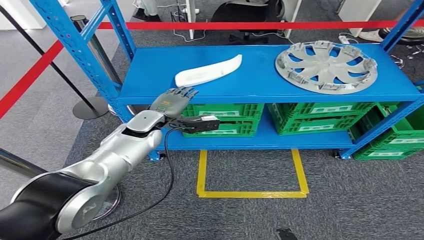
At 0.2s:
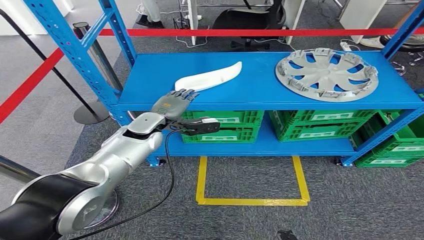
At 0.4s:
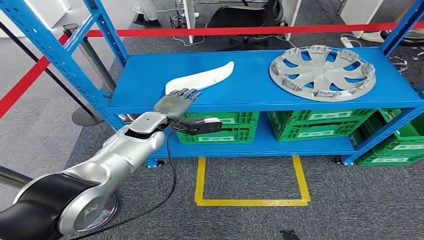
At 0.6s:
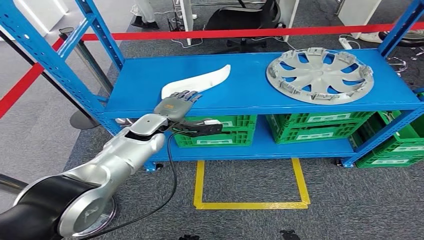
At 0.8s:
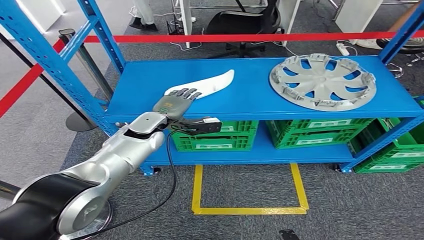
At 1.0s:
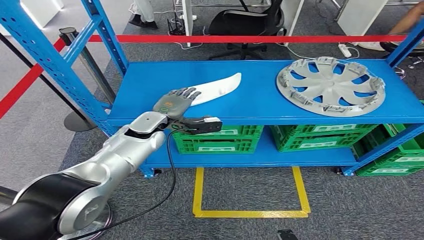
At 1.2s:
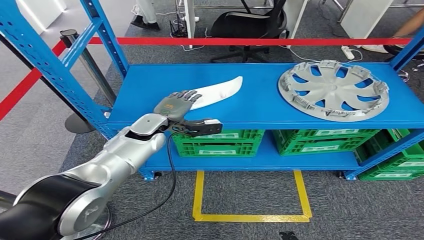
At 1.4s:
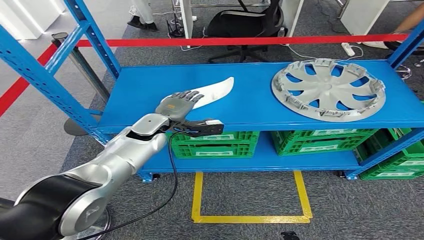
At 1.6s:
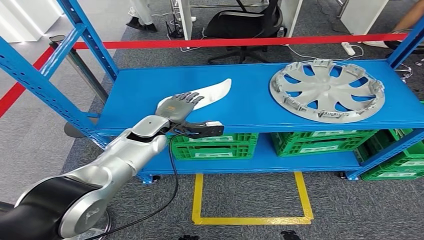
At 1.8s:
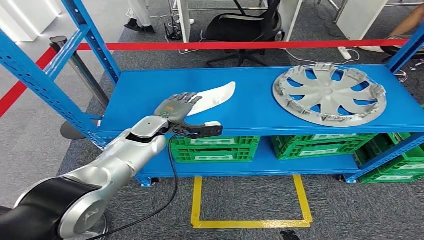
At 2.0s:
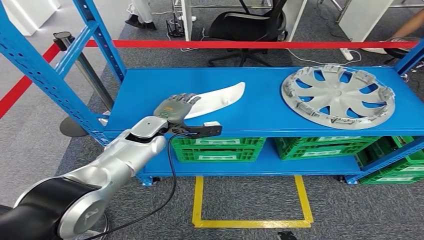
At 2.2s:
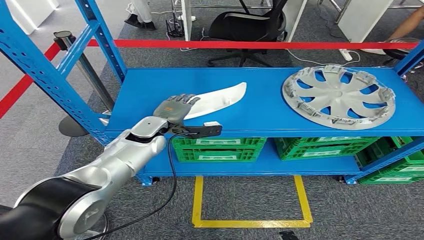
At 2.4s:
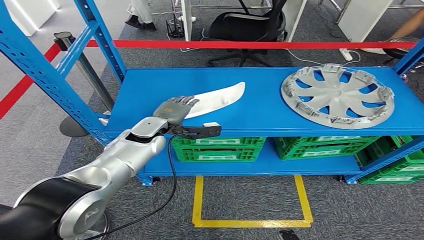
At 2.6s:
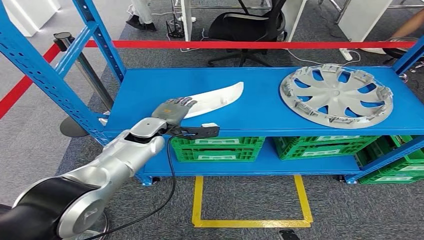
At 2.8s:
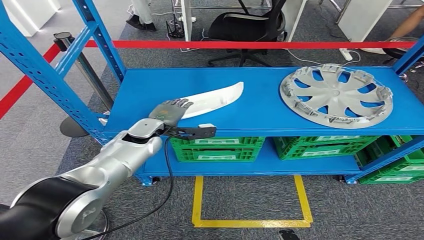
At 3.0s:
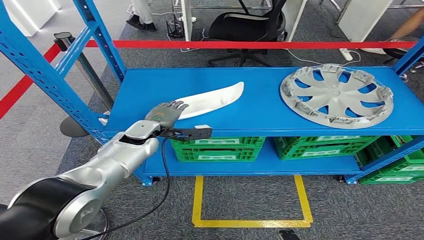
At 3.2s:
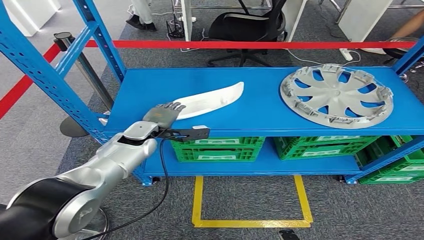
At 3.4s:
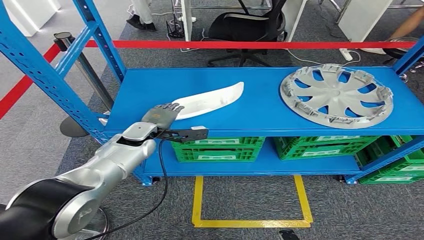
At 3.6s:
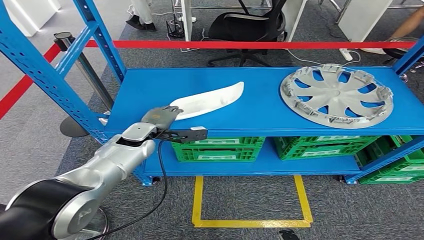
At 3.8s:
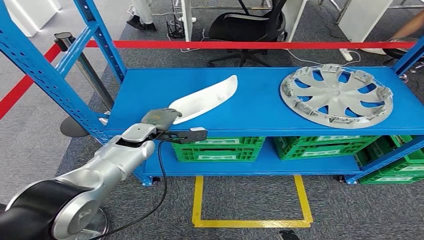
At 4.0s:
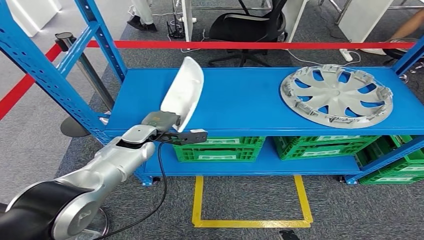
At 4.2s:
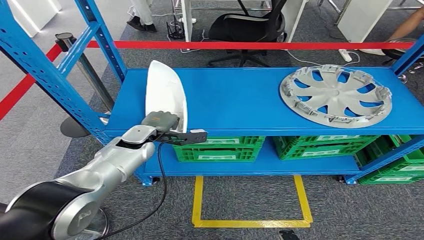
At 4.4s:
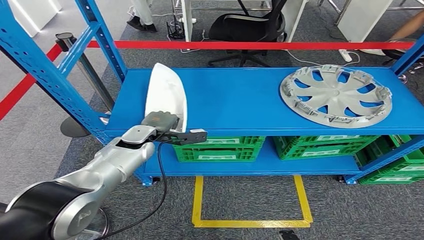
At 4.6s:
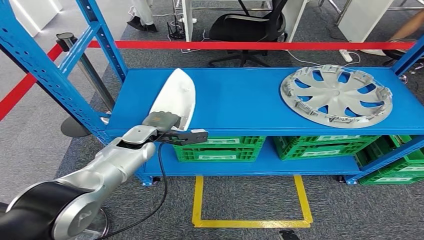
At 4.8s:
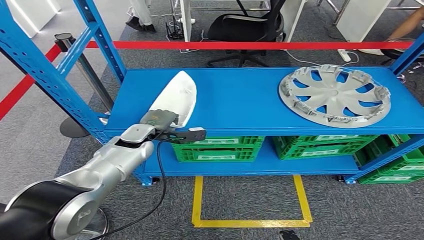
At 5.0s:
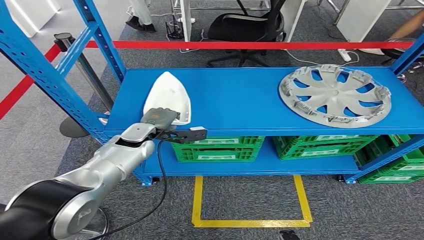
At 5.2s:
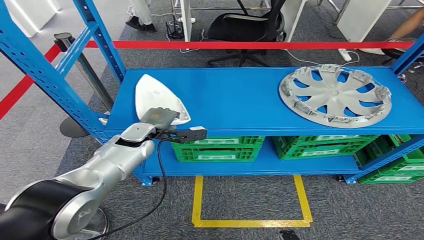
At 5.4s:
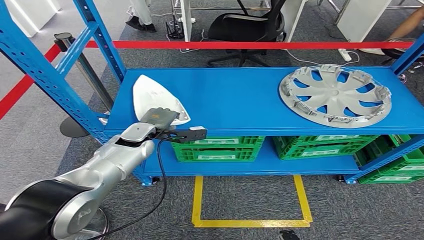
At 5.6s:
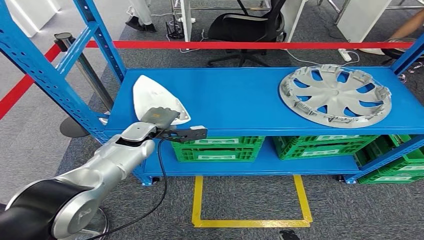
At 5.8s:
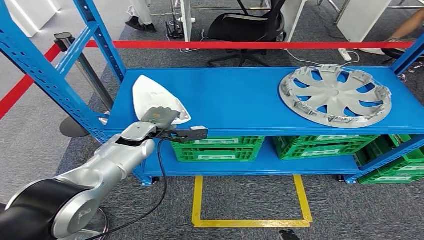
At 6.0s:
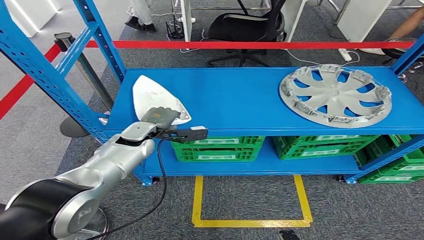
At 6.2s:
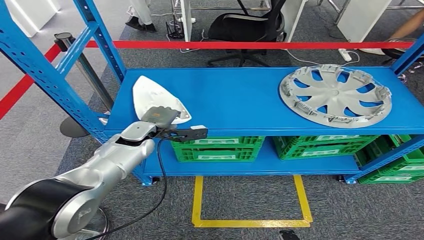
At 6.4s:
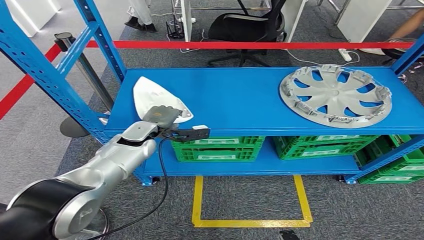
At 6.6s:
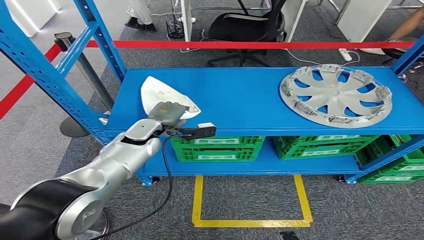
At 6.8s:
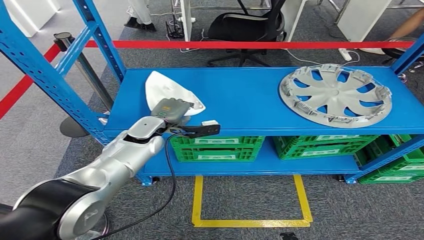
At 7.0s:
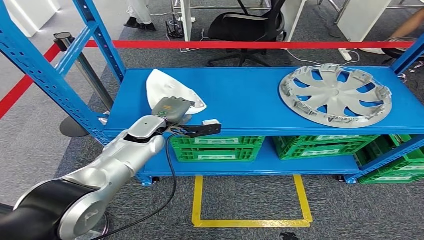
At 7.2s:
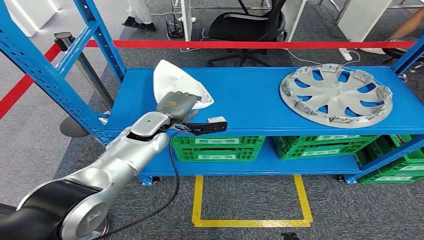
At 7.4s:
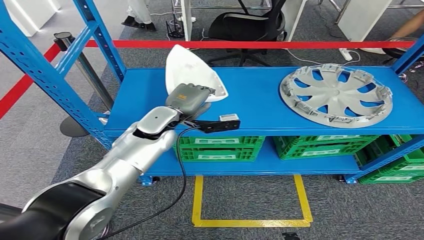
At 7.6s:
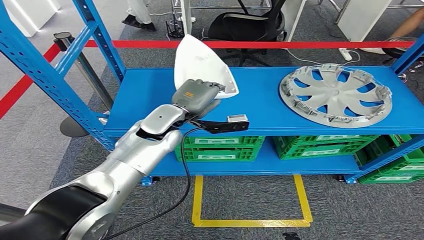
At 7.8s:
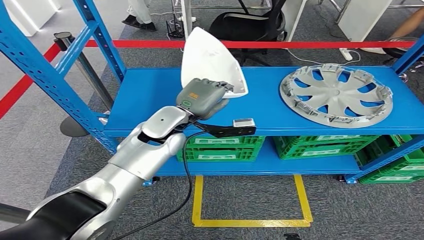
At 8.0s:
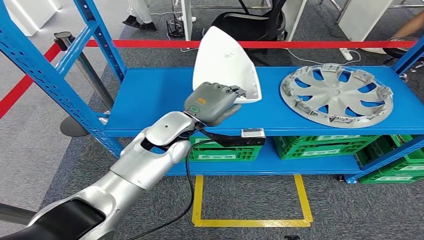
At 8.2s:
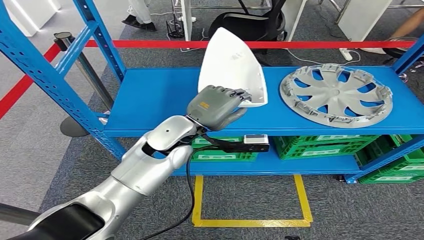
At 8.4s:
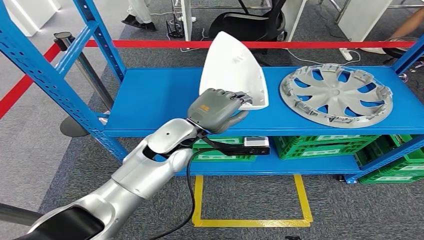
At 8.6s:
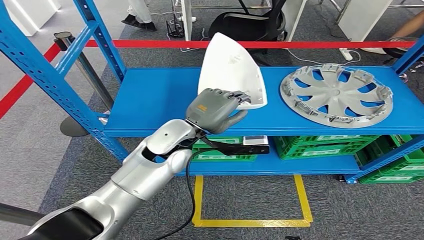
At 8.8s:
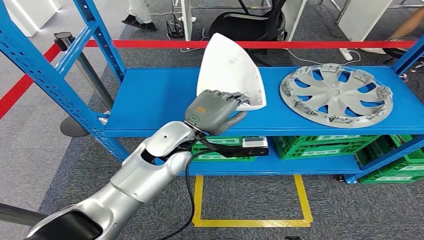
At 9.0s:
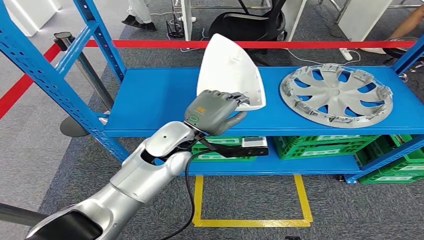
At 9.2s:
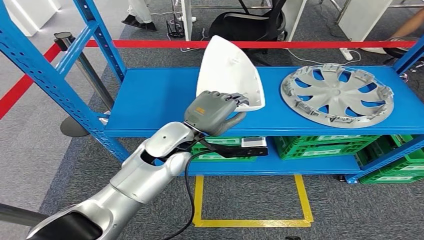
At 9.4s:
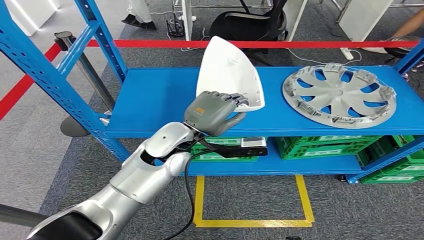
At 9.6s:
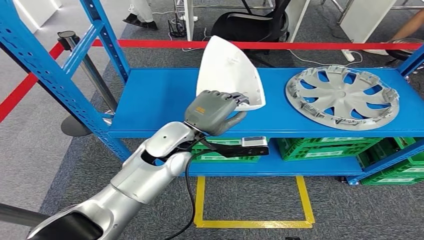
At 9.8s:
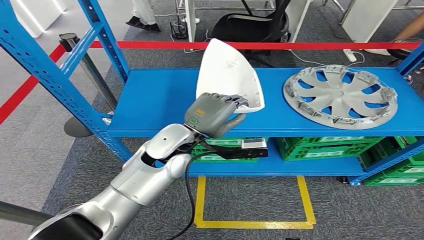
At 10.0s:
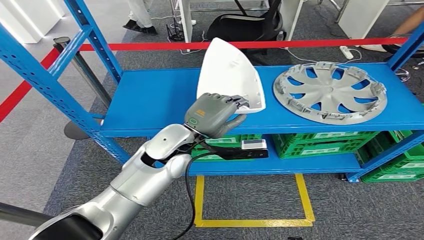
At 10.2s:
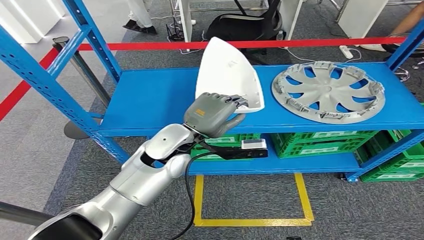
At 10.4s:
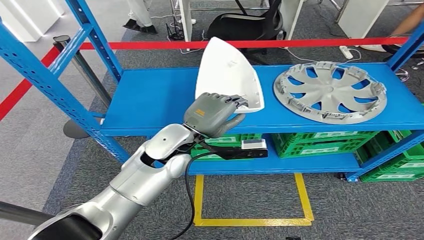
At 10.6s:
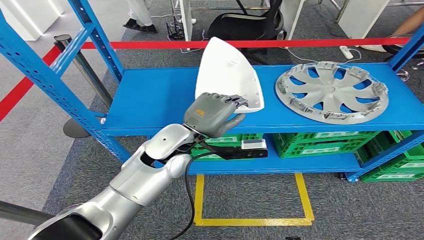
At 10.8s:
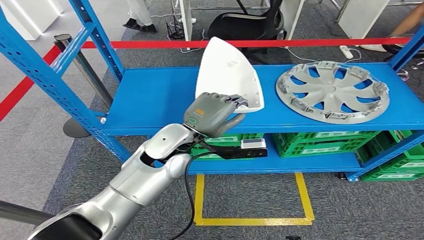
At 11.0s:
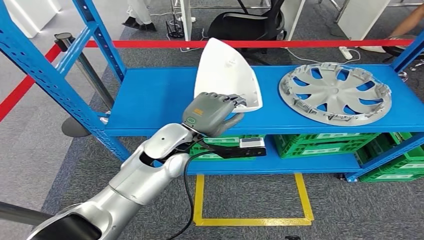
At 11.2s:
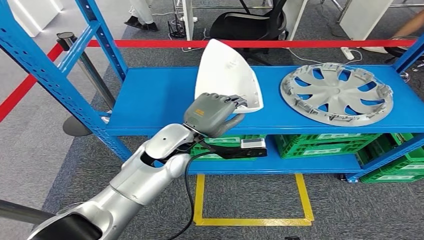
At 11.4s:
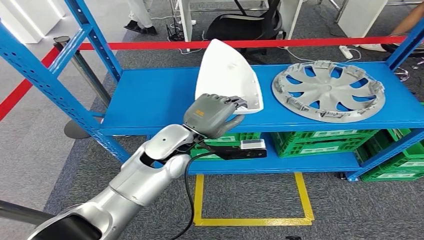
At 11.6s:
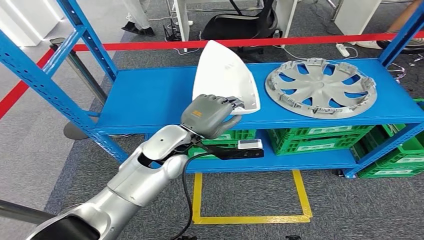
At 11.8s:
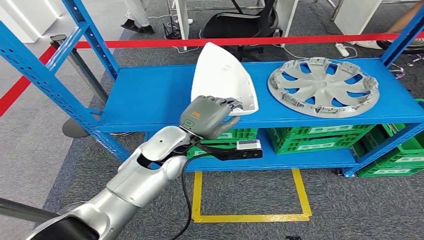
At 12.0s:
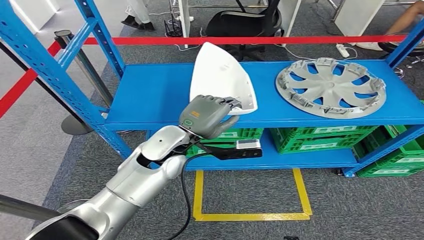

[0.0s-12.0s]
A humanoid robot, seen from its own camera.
Step, 0.0s to 8.2s: Pick up the small parts from the shelf.
3.0s to 4.4s: There are only small adjustments of the hands.
4.4s to 6.0s: Both hands stay put.
6.0s to 7.6s: The left hand moves upward and to the right, about 10 cm.
7.6s to 9.0s: The left hand is displaced backward by roughly 5 cm.

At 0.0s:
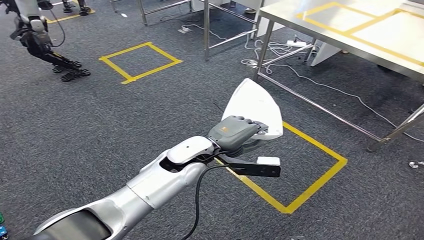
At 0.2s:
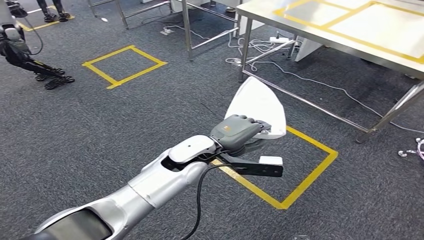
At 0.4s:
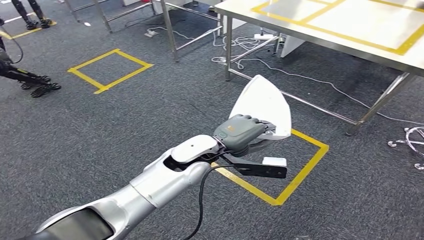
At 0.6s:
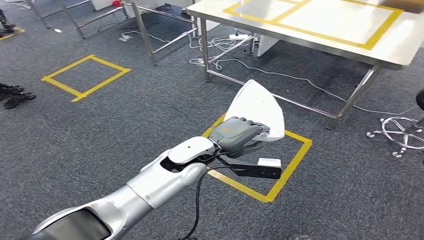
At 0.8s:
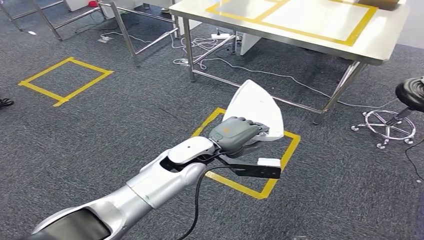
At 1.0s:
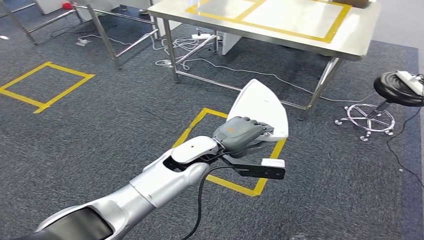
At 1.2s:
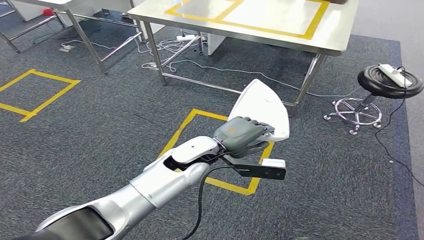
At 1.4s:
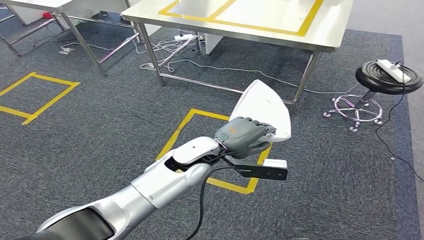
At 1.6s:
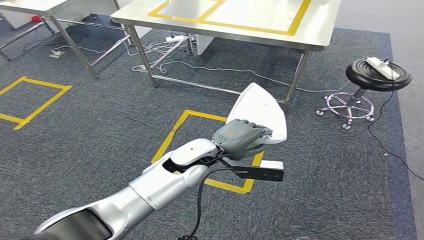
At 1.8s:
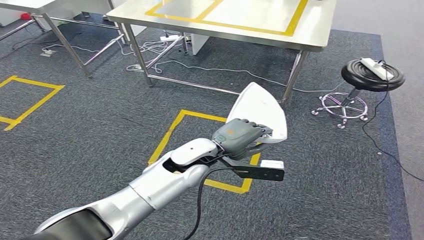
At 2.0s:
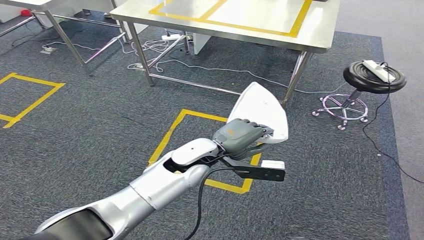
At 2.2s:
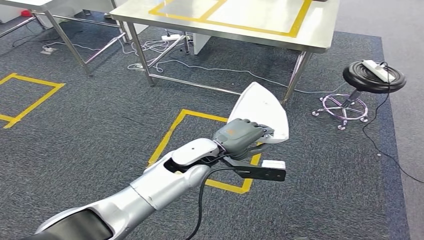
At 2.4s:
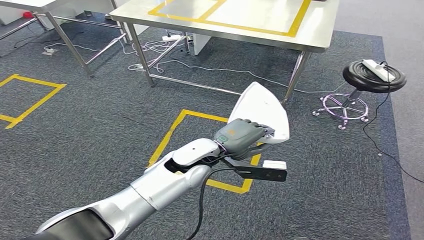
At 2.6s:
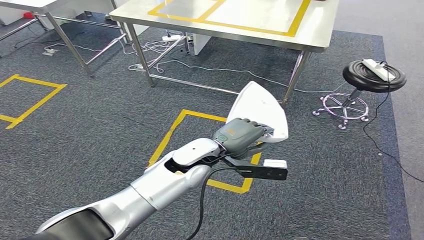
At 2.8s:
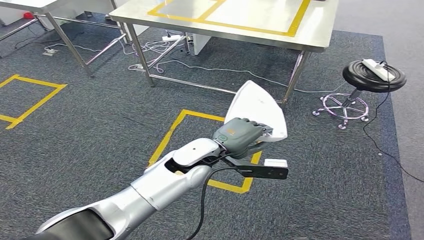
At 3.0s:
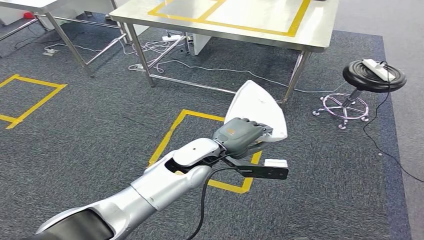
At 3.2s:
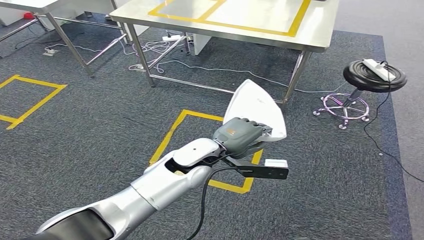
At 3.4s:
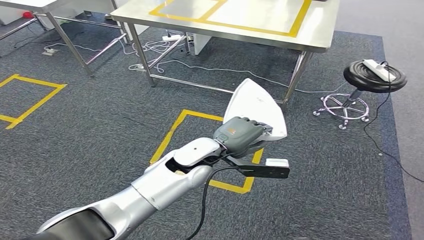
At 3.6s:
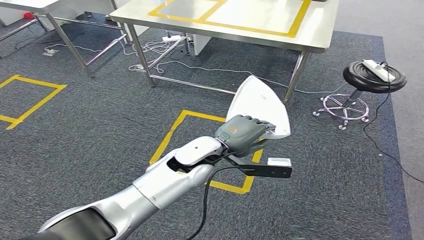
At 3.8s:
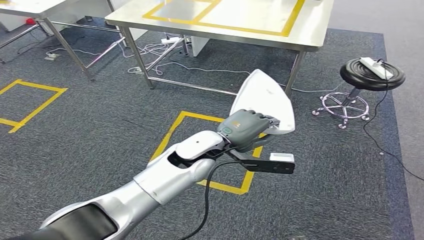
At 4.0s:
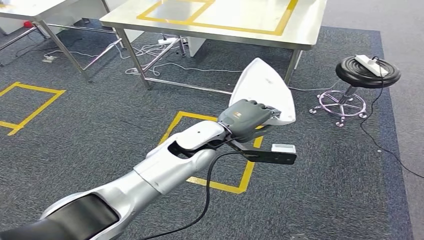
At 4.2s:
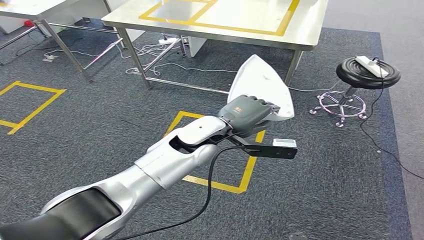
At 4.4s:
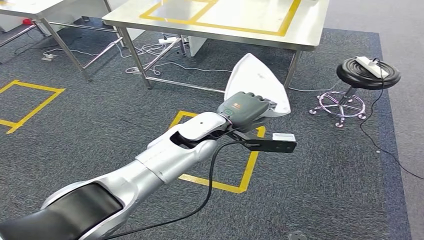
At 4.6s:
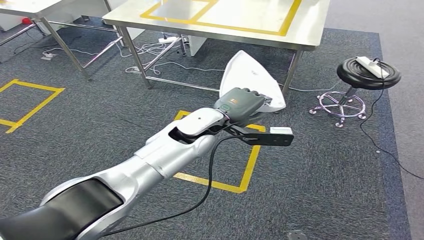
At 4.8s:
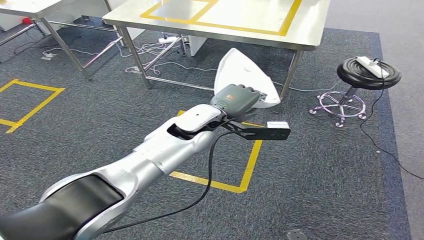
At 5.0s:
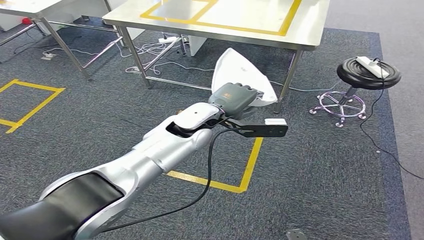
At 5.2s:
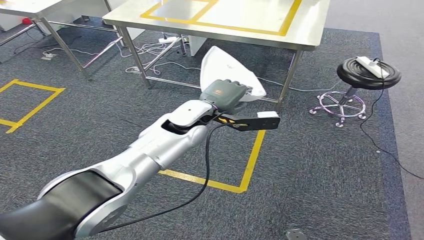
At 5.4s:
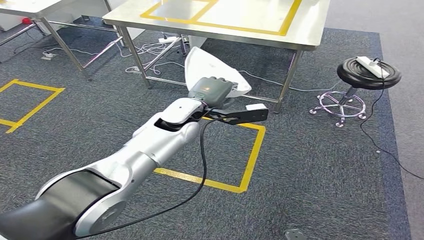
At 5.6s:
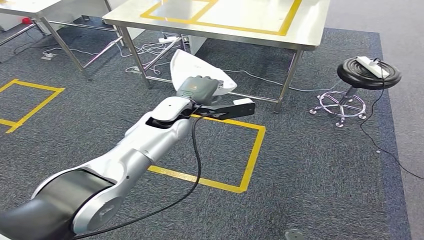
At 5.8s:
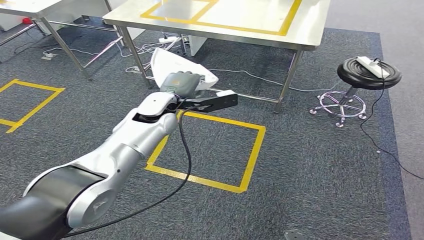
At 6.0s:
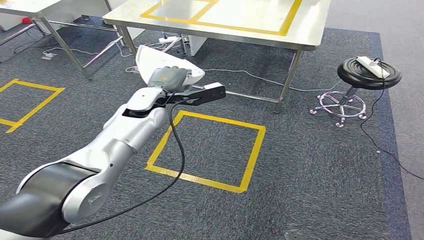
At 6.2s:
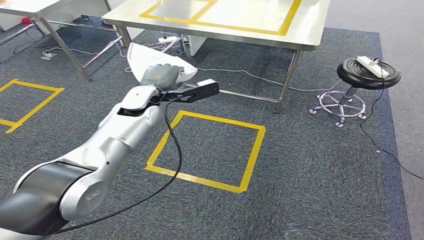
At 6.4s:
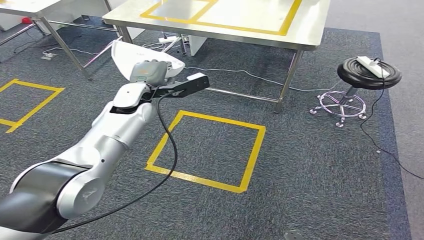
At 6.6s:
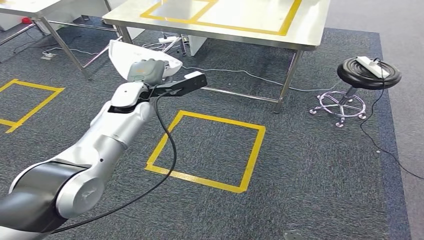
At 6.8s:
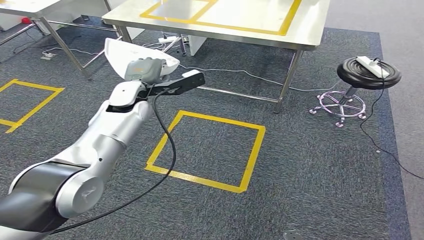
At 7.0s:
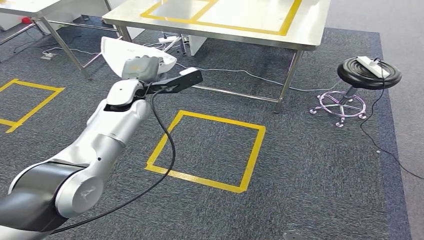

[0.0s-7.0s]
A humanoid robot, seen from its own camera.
5.6s to 7.0s: The left hand goes some 10 cm to the left.
